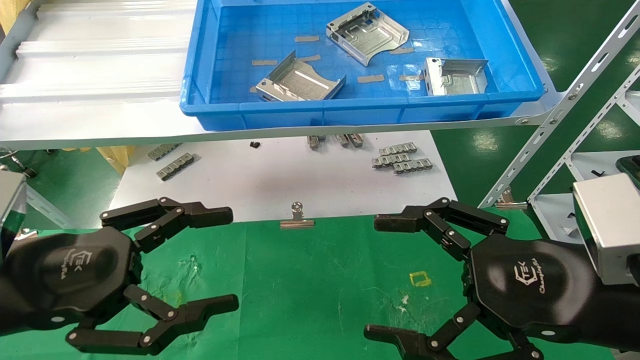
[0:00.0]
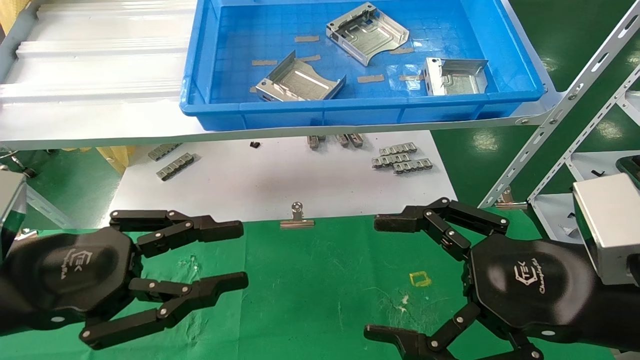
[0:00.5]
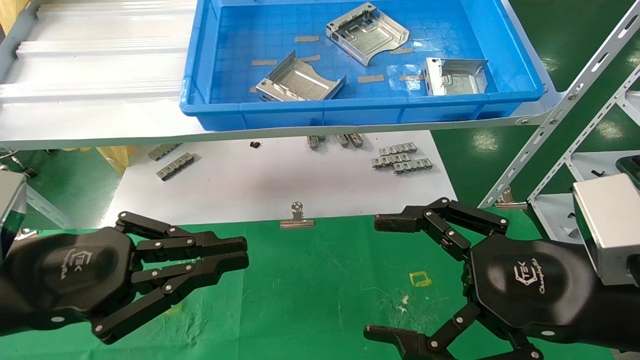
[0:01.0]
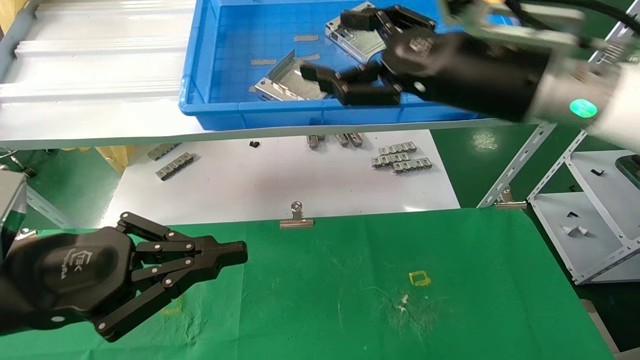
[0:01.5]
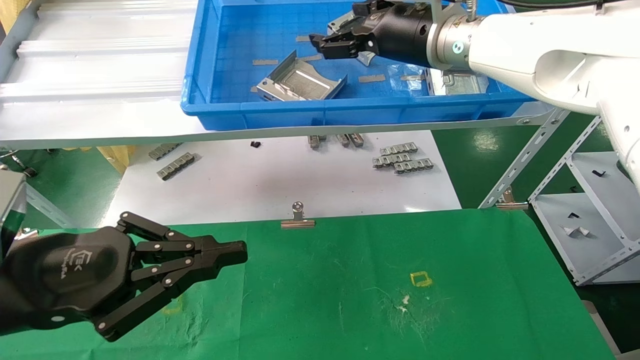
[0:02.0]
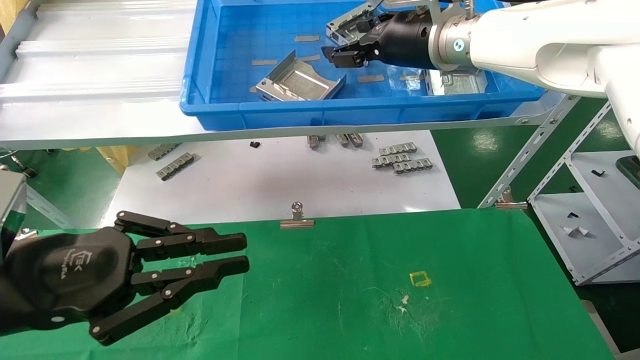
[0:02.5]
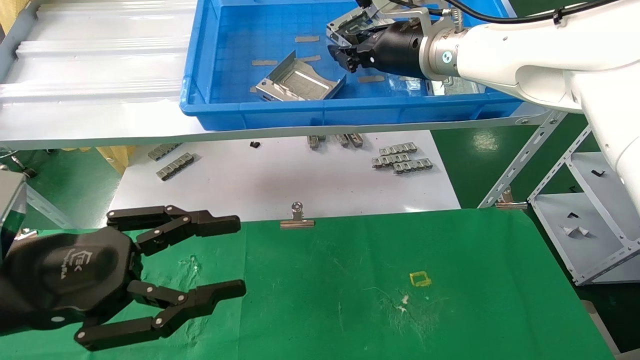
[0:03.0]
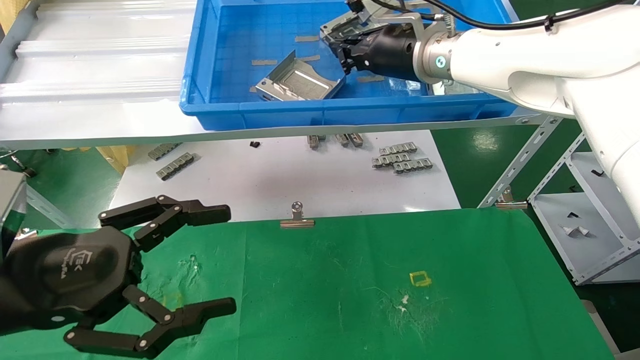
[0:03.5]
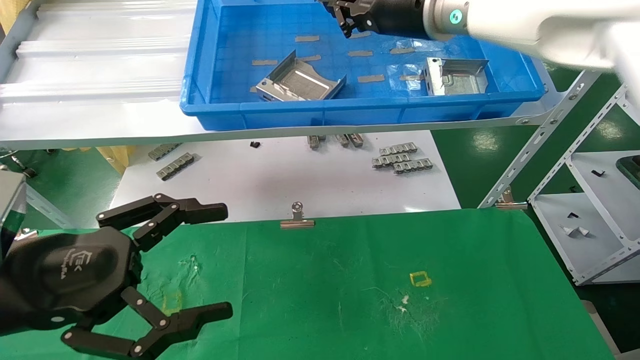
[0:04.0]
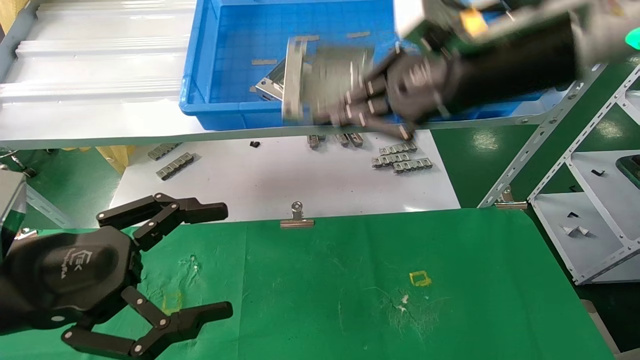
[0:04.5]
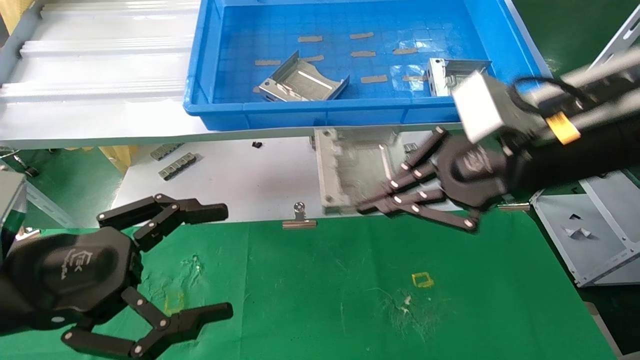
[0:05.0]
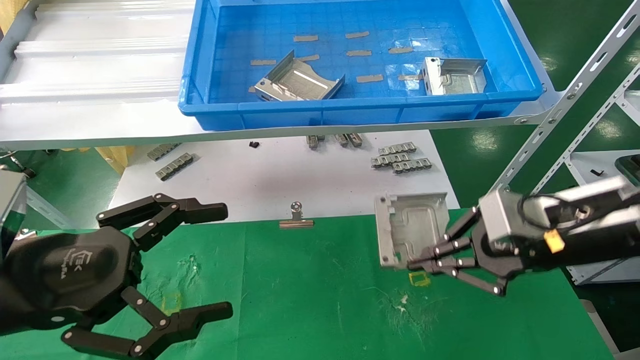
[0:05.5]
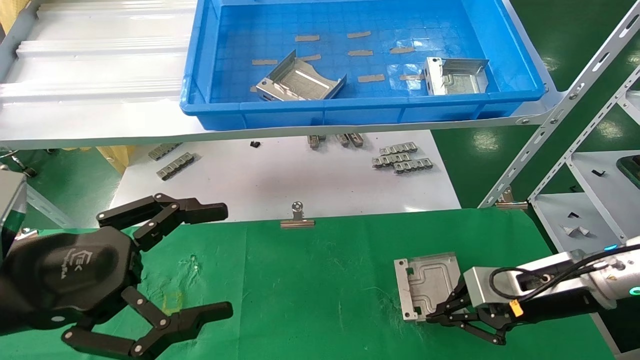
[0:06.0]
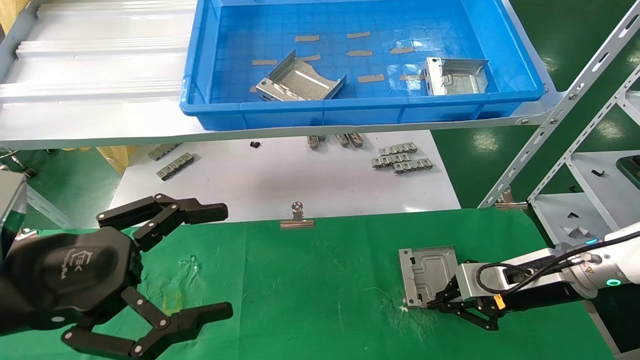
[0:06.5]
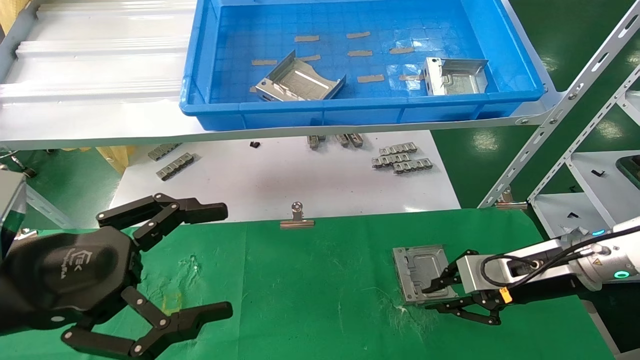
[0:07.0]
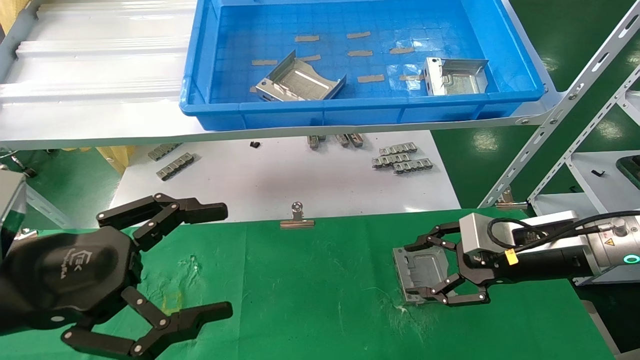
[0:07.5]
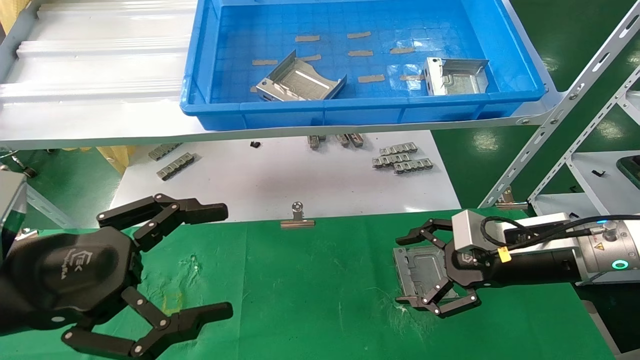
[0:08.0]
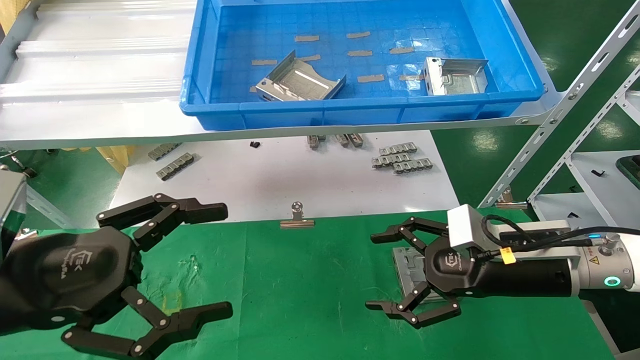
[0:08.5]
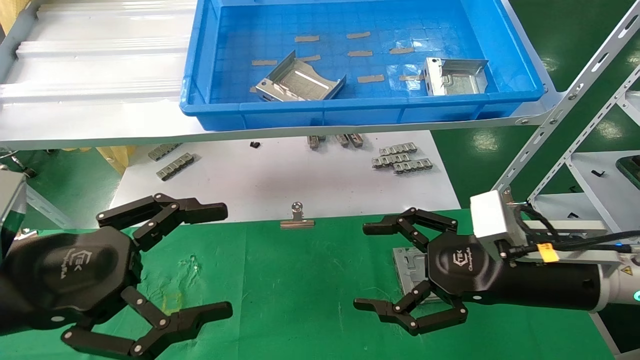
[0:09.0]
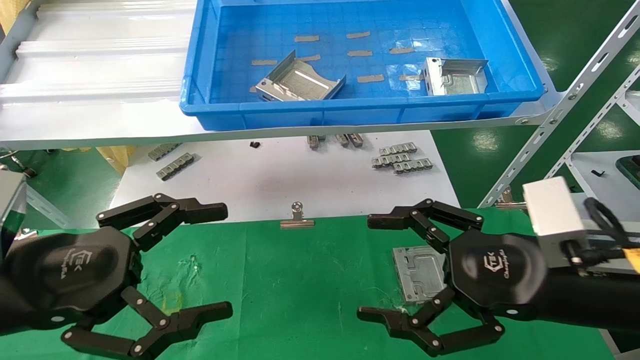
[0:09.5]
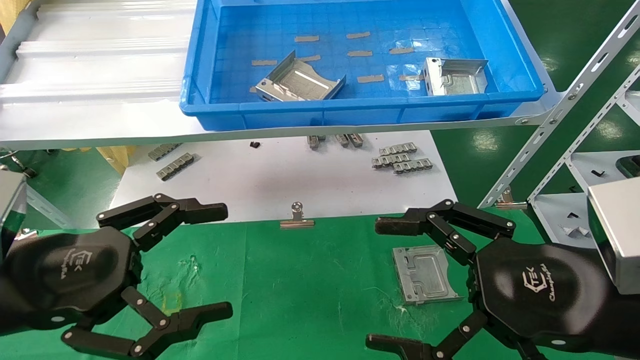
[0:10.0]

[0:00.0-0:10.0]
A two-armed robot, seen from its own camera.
Task of the whole recording: use the mechanical arm to pick up the parts and place them on the table.
Step, 0:01.5 to 0:04.5: Pick up the hard drive bracket from the feeding area.
Step, 0:05.0 to 0:07.5: Place the hard drive bracket into the box.
0:00.0 to 0:02.0: The left gripper closes up. The right gripper travels forward, upward and to the left by approximately 35 cm.
0:02.0 to 0:04.0: The left gripper opens; the right gripper closes up.
0:04.0 to 0:06.0: The right gripper is displaced downward and to the right by about 35 cm.
0:06.0 to 0:08.0: The right gripper opens its fingers.
0:08.0 to 0:10.0: The right gripper is displaced backward by roughly 15 cm.
